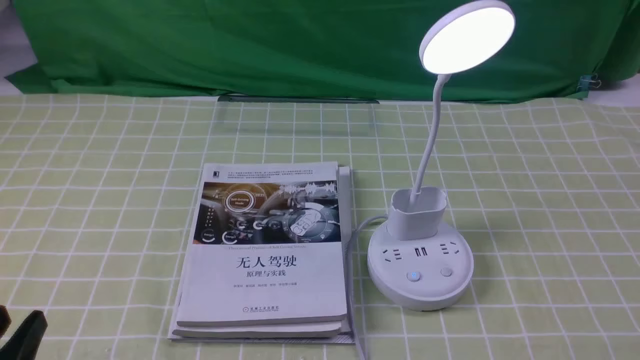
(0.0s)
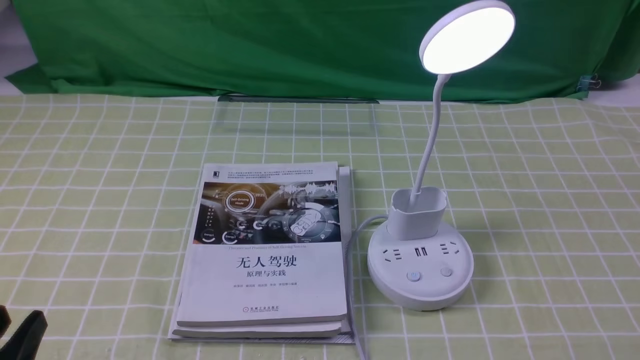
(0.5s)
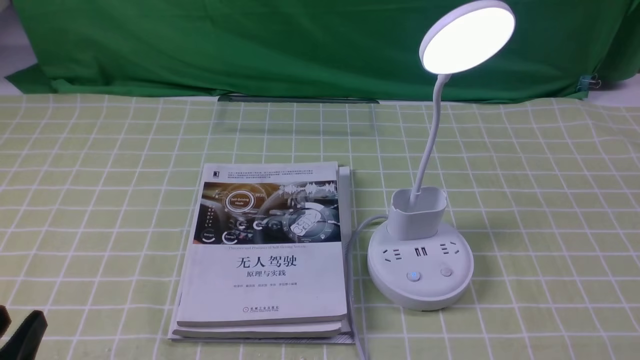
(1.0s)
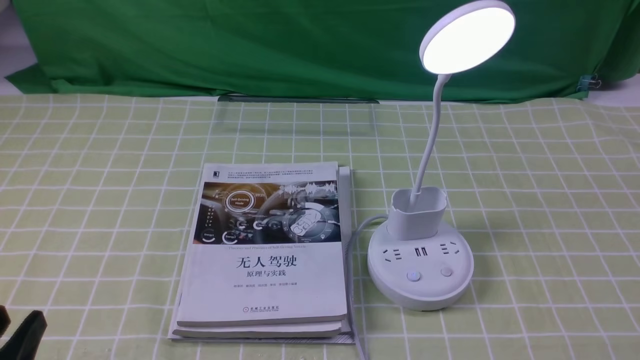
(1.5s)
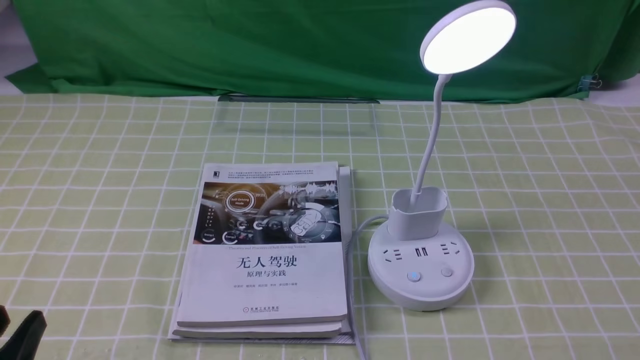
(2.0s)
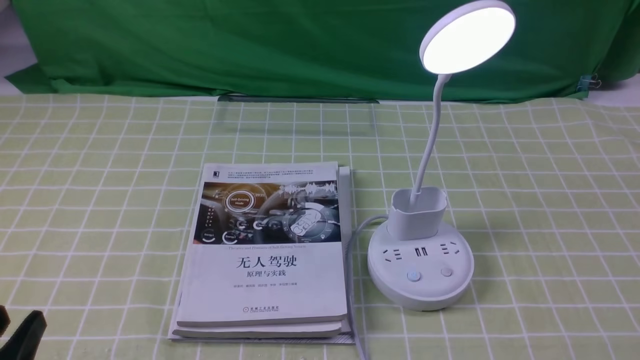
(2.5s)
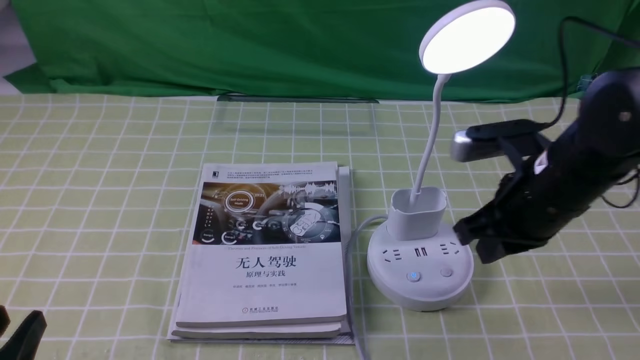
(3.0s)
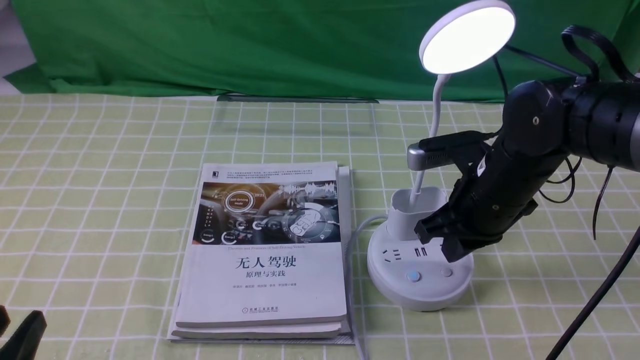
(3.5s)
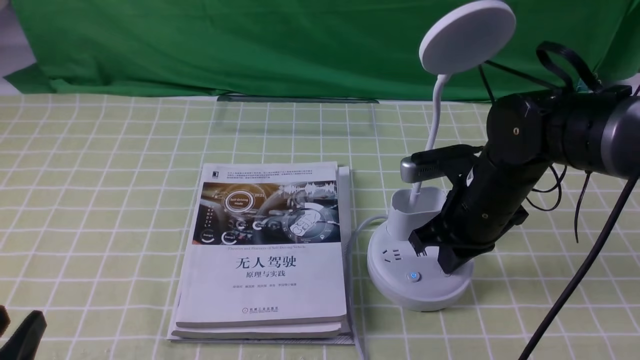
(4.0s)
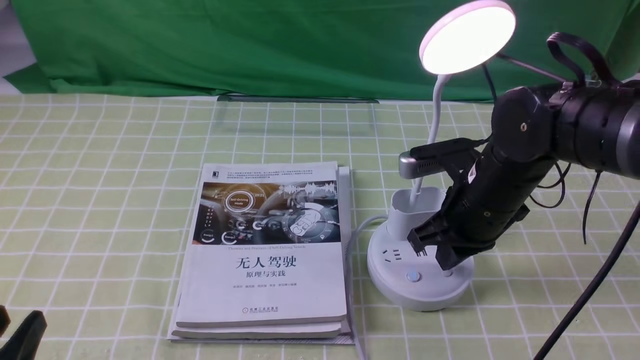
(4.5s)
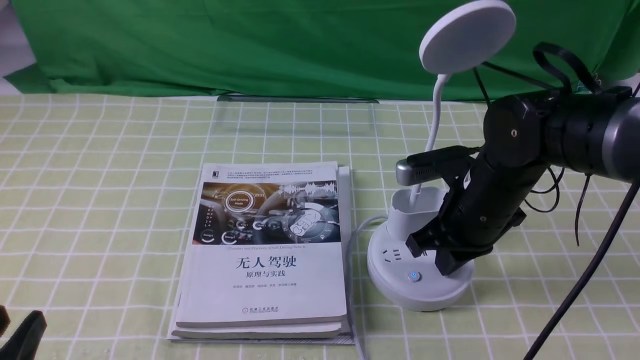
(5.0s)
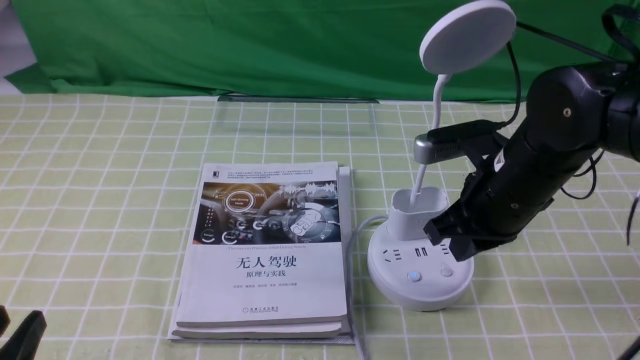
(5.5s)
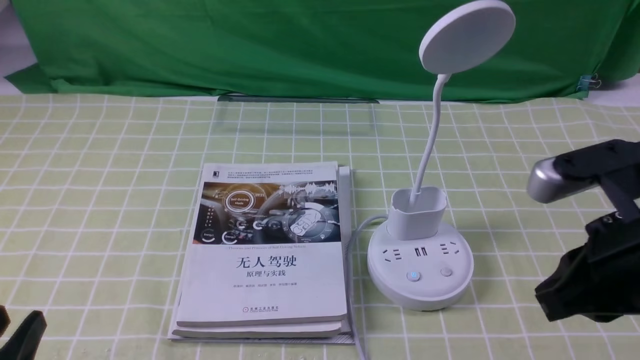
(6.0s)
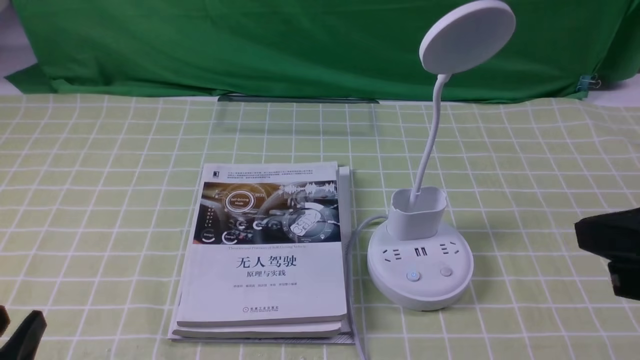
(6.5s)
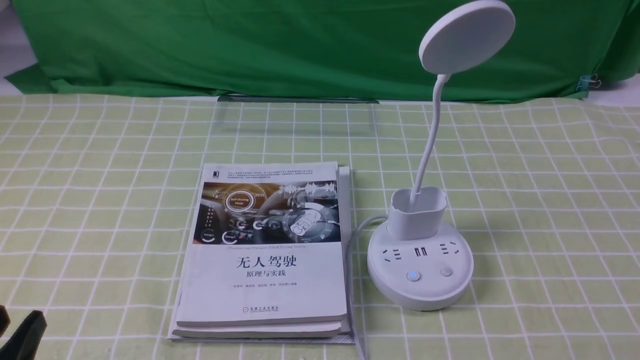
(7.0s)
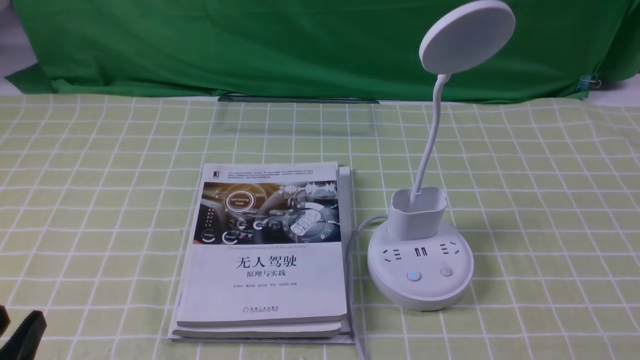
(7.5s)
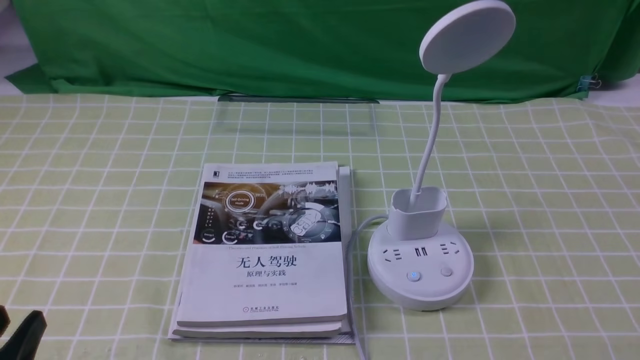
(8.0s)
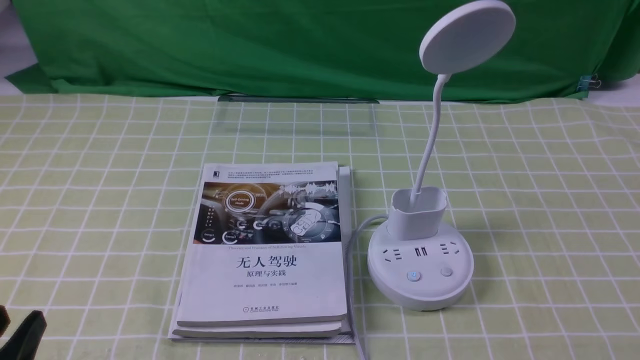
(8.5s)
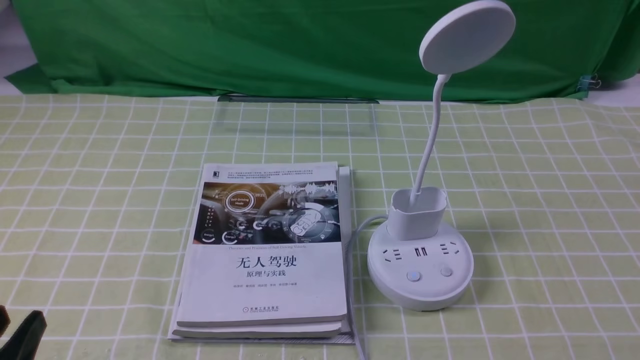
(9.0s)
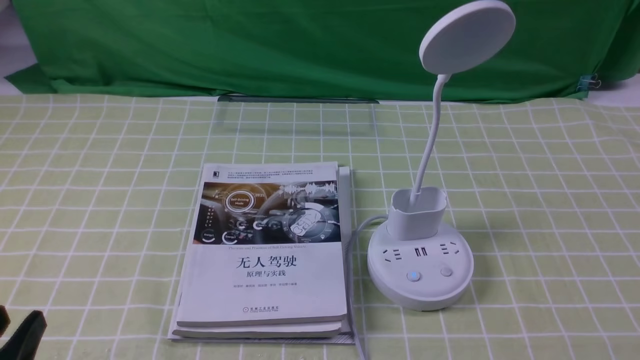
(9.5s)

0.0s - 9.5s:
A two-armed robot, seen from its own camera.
Task of the whole recording: turn off the desk lamp on the green coffee tablecloth by hand.
Step, 0.0s - 5.0s: use the right arm to press the button switch on the lamp holder.
2.0s - 4.0s: The right gripper goes about 30 cm forward and to the left, and closes.
4.0s - 5.5s: The right gripper travels upward by about 5 cm.
5.5s - 7.5s: The right gripper goes approximately 30 cm backward and to the right.
